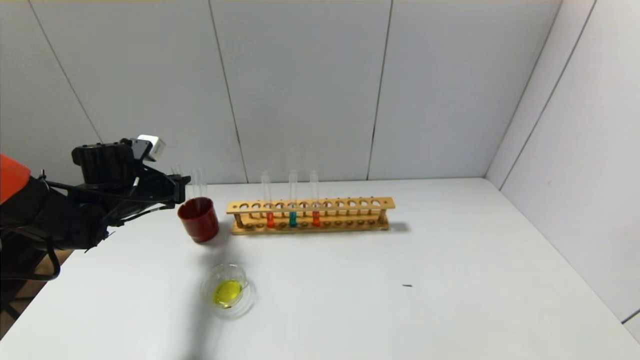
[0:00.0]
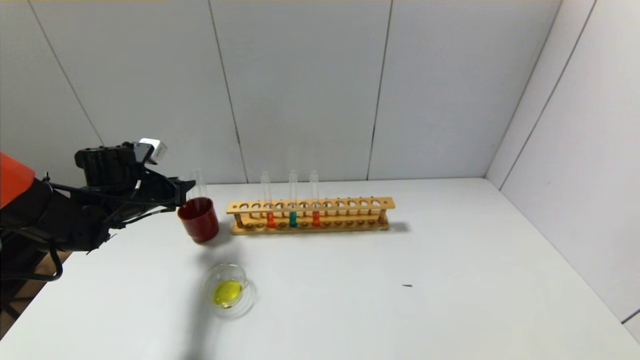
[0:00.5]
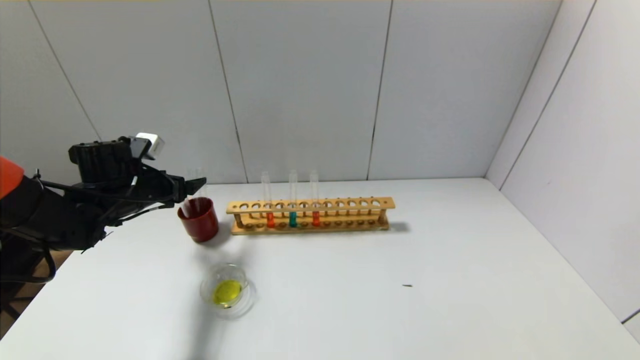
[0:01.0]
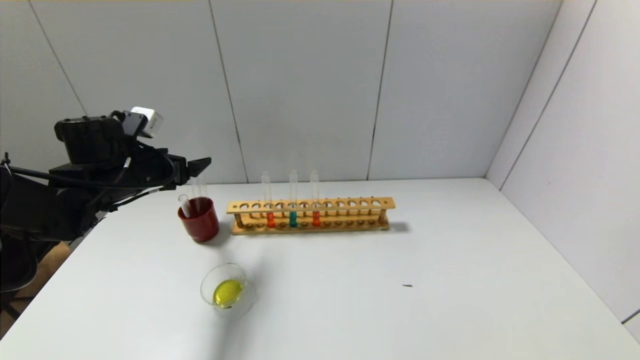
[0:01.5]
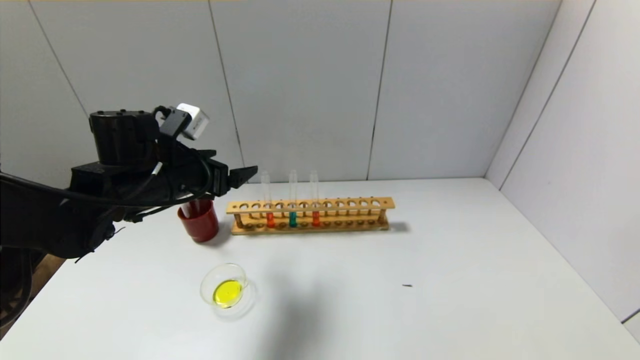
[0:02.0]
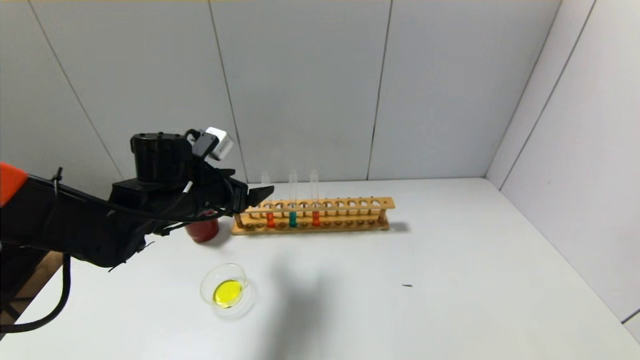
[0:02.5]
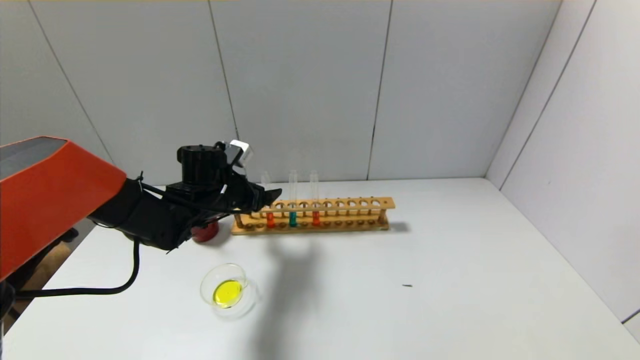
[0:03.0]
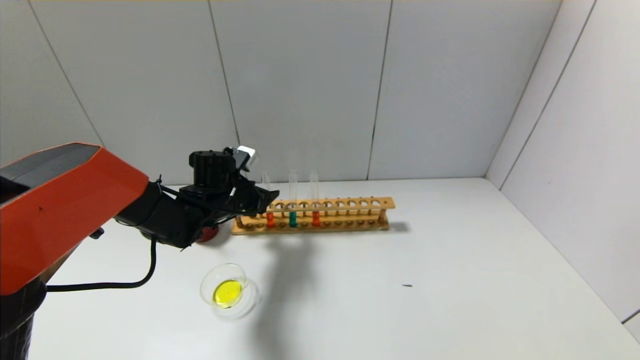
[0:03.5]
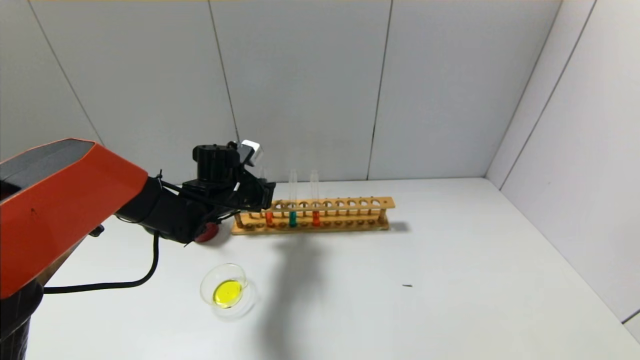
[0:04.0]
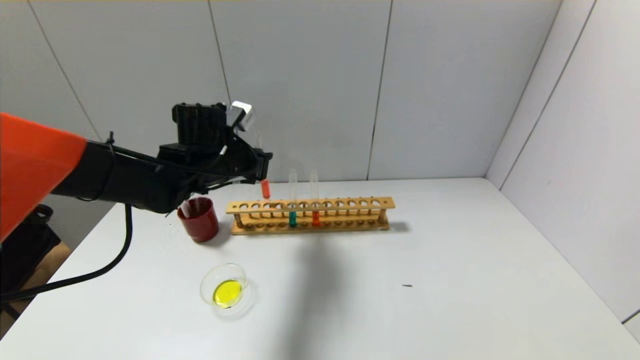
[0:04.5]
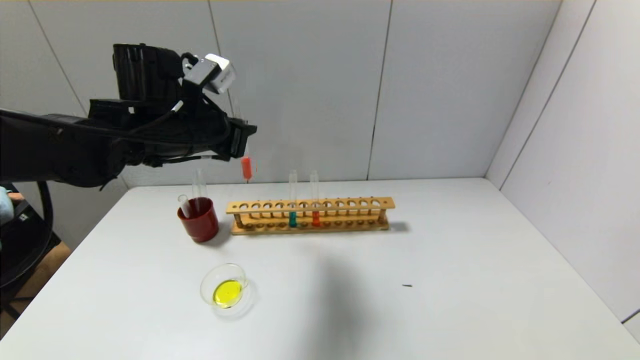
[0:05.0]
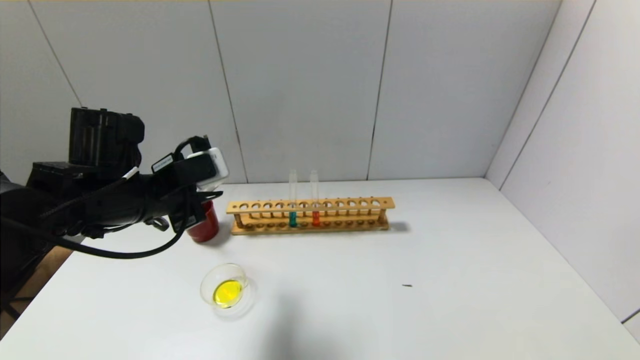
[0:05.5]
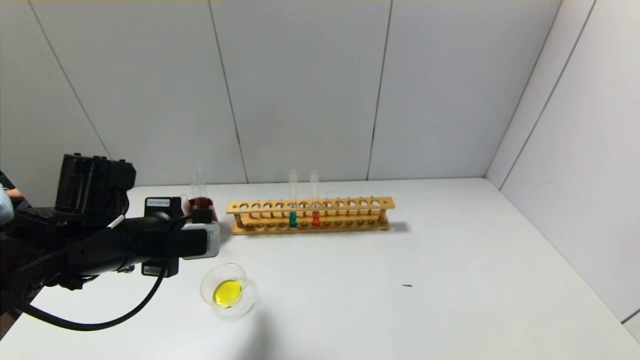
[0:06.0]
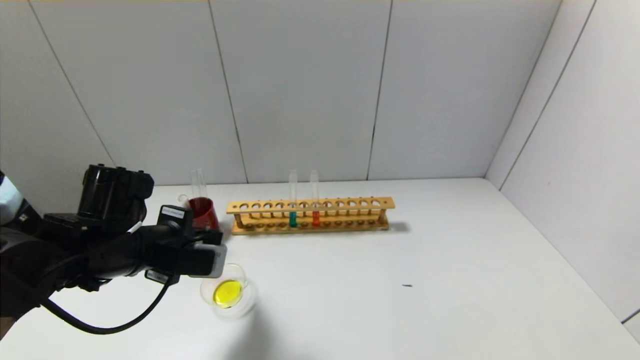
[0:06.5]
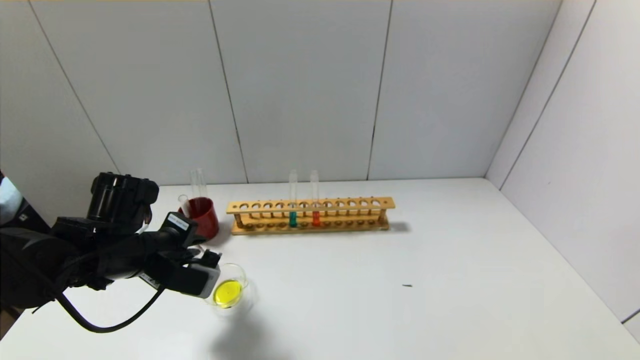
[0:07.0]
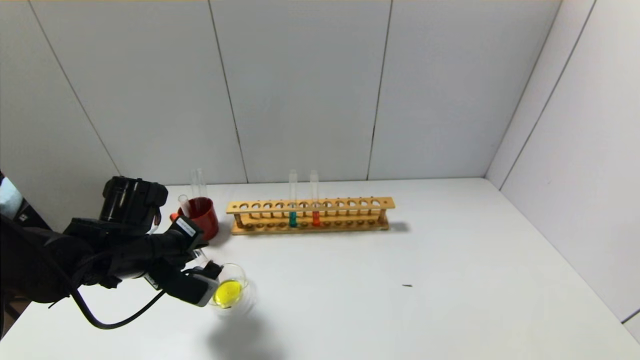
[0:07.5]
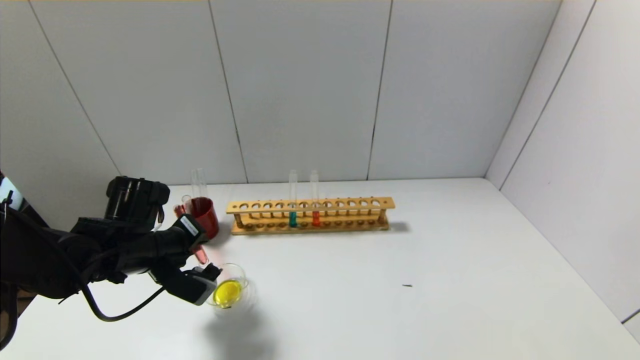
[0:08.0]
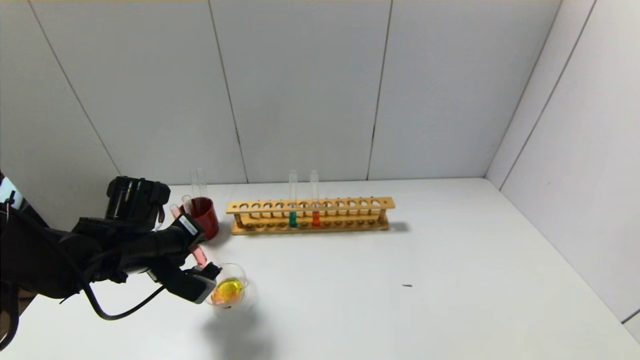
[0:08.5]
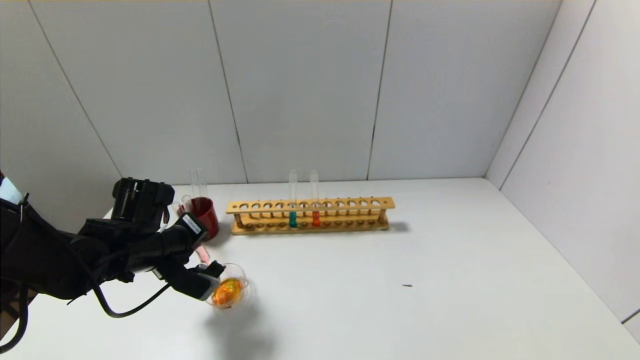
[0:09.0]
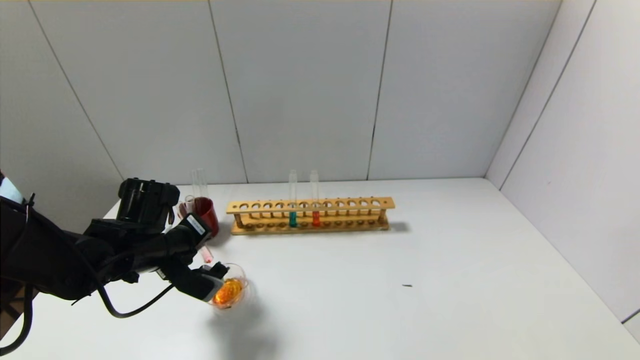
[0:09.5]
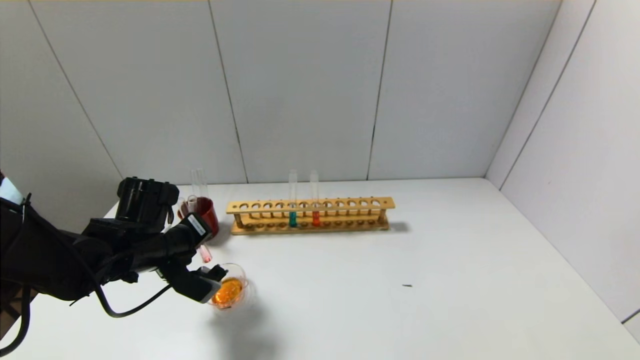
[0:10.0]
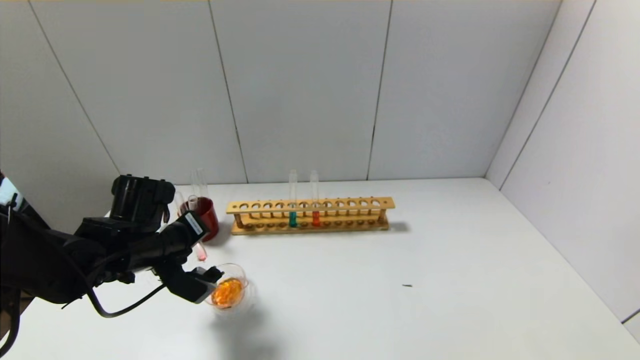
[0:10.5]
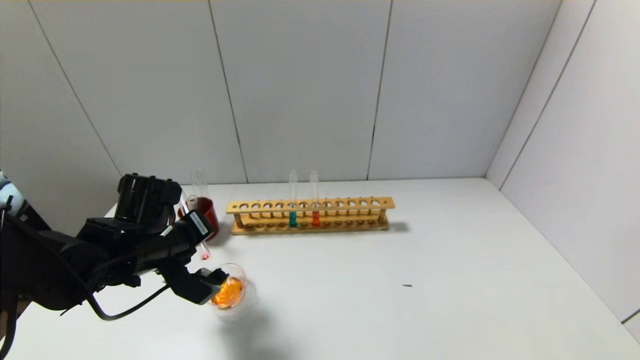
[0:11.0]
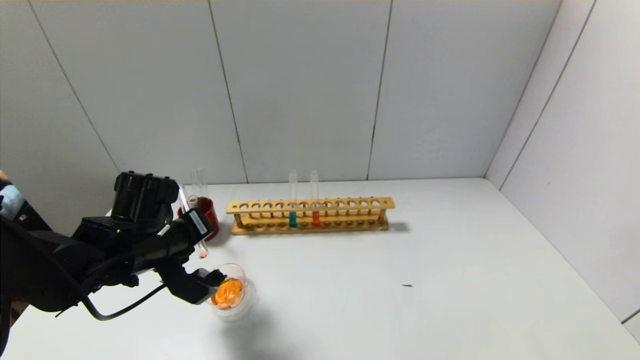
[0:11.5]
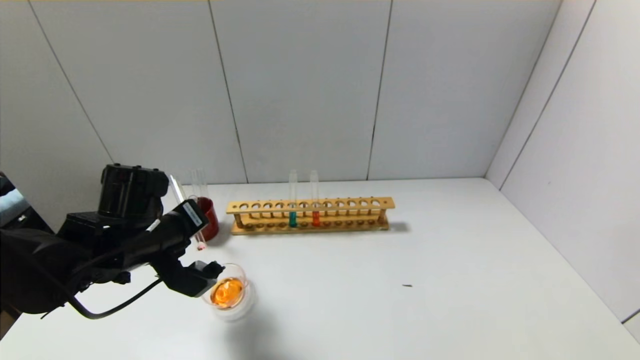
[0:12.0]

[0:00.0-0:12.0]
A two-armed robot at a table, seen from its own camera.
Step, 0:01.0 to 0:03.5: Grasp the red reagent with the left gripper.
0:00.0 to 0:02.0: The left gripper is displaced to the right, upward and backward by some 15 cm, and opens.
0:02.0 to 0:04.0: The left gripper is displaced forward and downward by roughly 10 cm, and closes.
0:04.0 to 0:06.0: The left gripper shifts roughly 20 cm backward and to the left.
0:06.0 to 0:08.0: The left gripper travels downward by roughly 5 cm.
0:08.0 to 0:12.0: The grippers stay close to where they were, moving slightly.

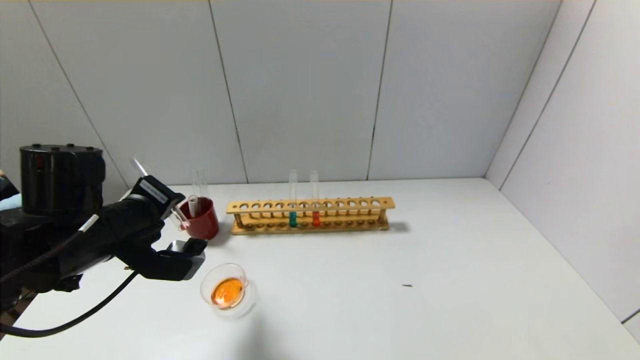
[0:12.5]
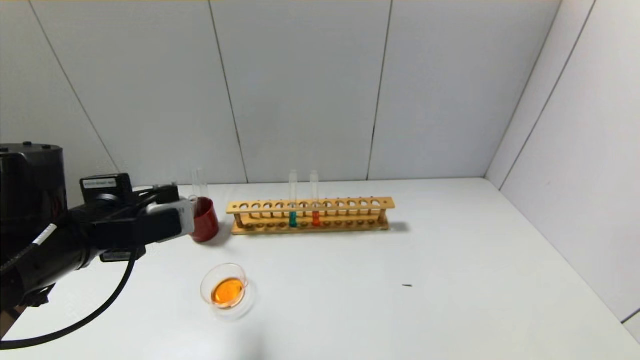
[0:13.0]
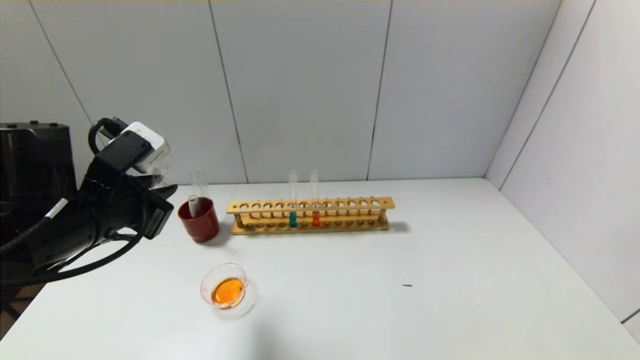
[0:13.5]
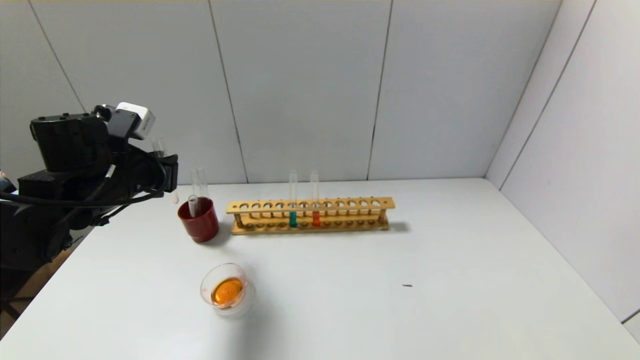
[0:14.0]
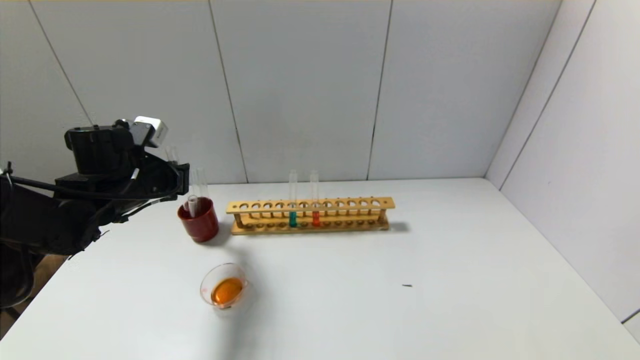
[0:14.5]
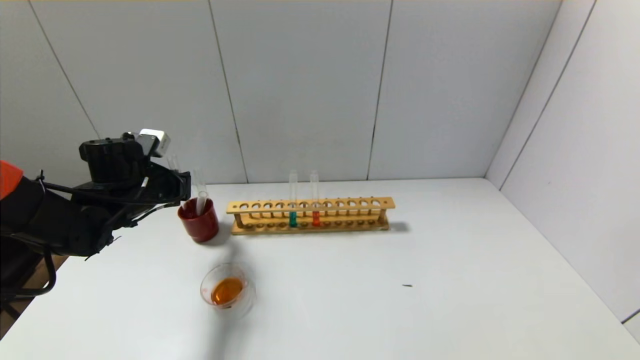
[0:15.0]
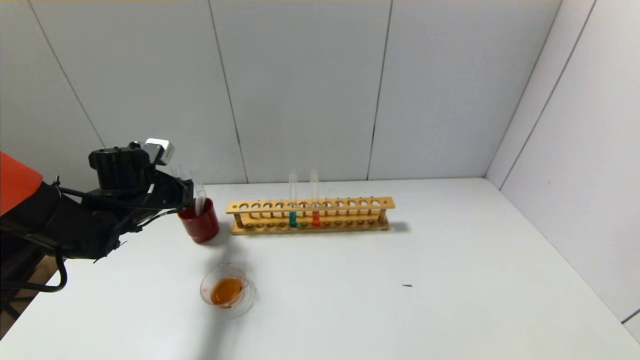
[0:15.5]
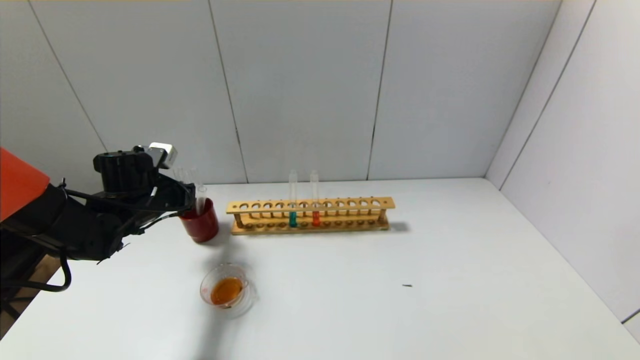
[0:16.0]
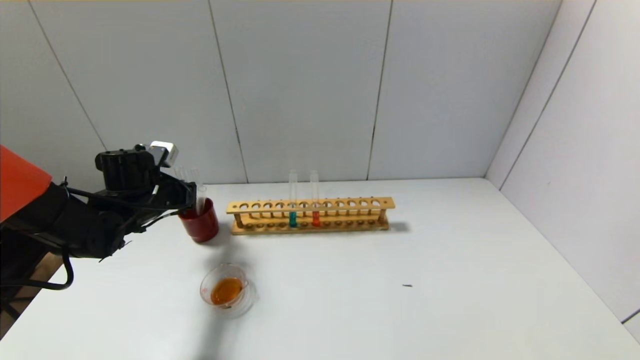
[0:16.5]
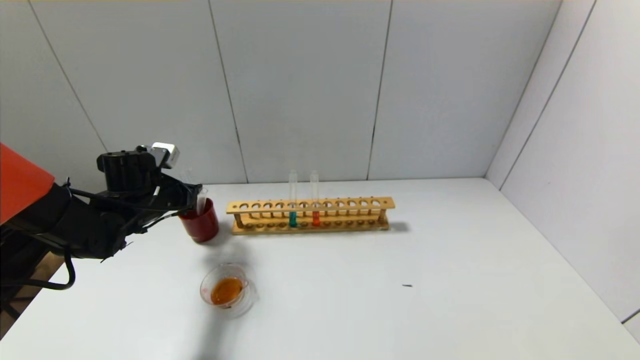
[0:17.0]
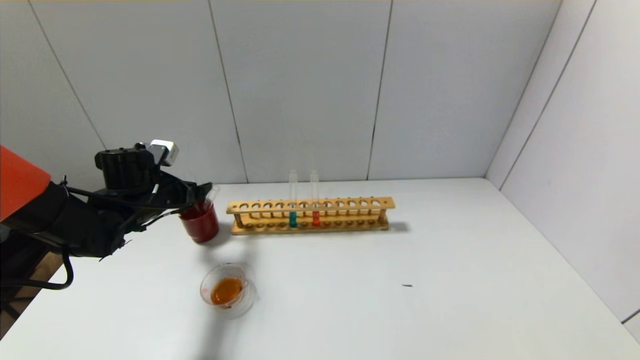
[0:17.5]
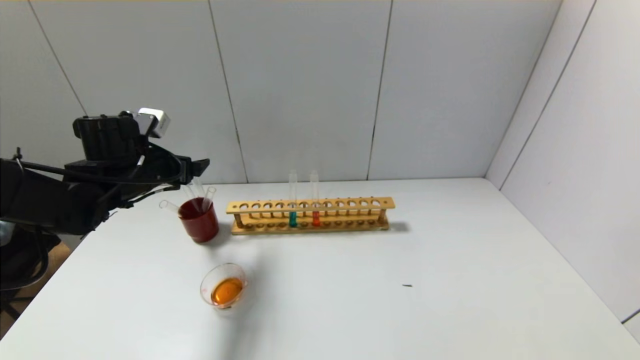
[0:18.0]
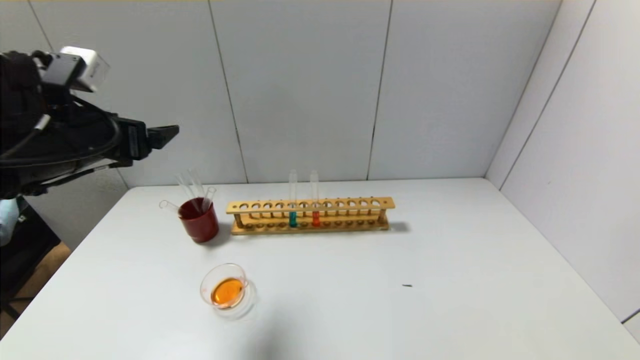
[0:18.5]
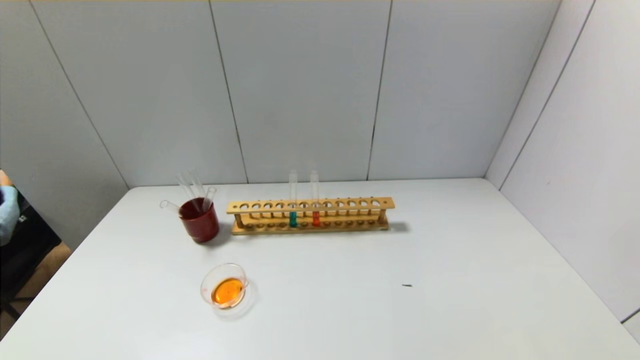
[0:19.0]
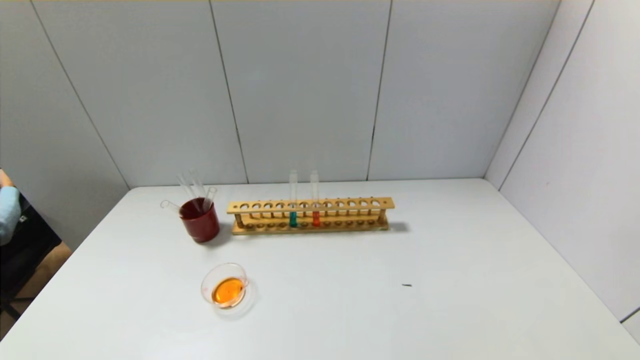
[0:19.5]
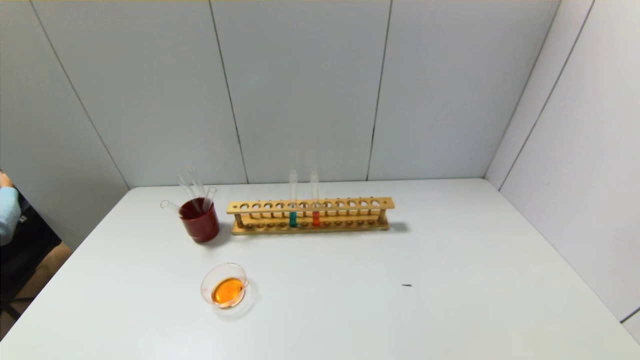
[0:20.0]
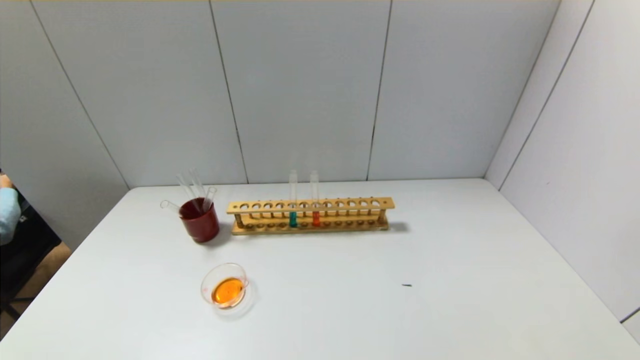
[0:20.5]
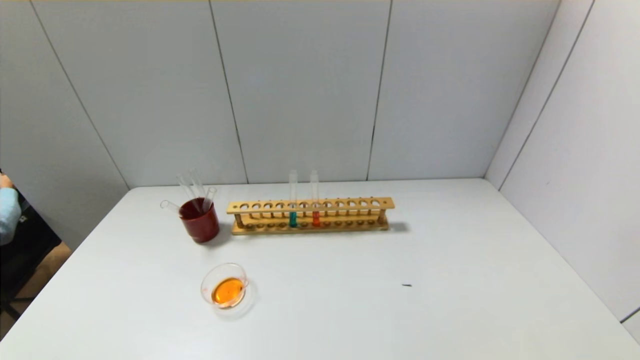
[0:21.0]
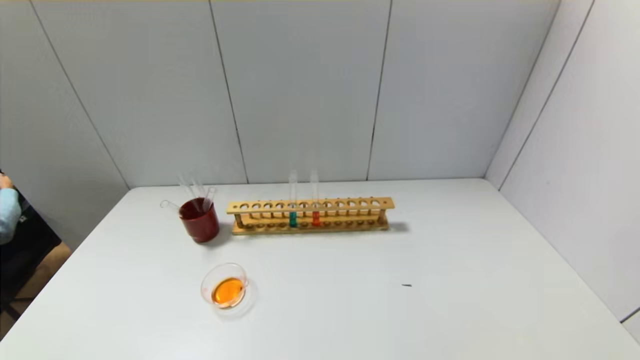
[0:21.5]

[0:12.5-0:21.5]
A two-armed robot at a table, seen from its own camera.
Step, 0:12.5 to 0:17.0: Place the test tube into the brown cup with the left gripper.
0:12.5 to 0:14.5: The left gripper shifts approximately 10 cm forward.
0:14.5 to 0:17.0: The left gripper moves downward, about 5 cm, and opens.
0:17.0 to 0:19.5: The left gripper is displaced backward by some 40 cm, and opens up.
